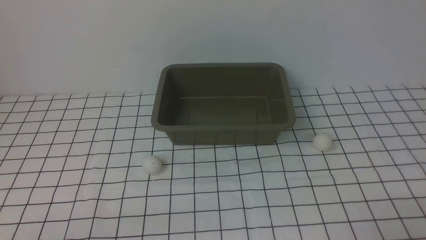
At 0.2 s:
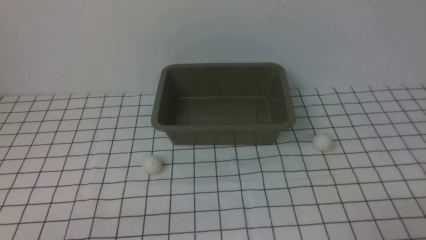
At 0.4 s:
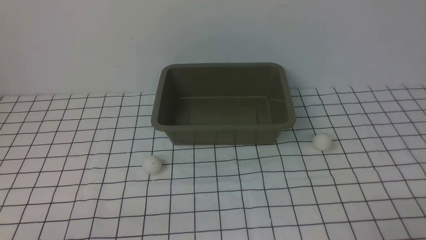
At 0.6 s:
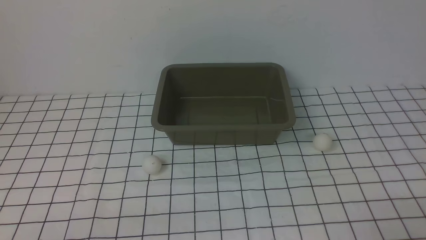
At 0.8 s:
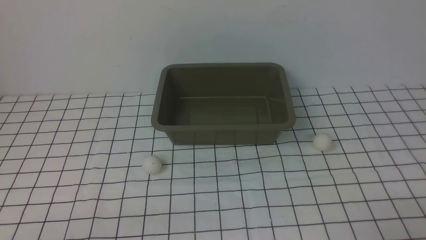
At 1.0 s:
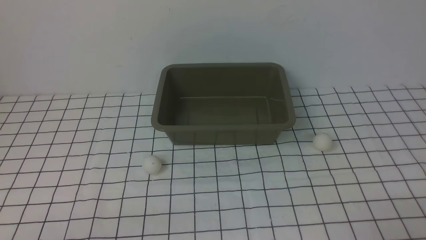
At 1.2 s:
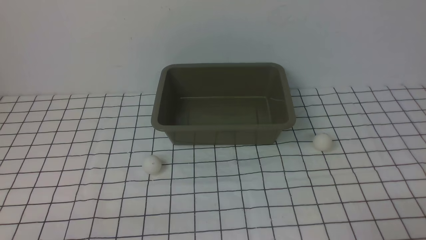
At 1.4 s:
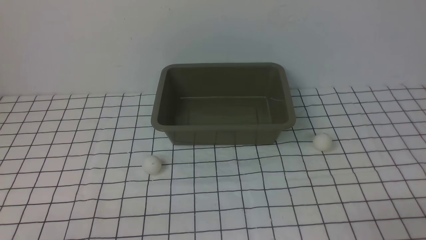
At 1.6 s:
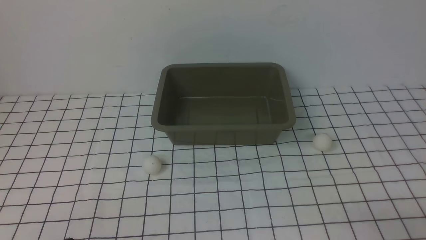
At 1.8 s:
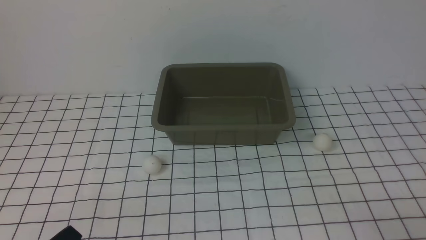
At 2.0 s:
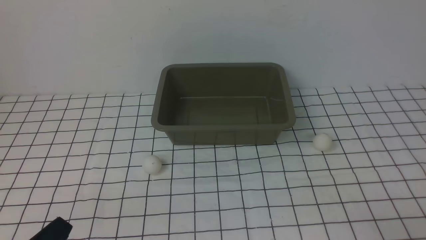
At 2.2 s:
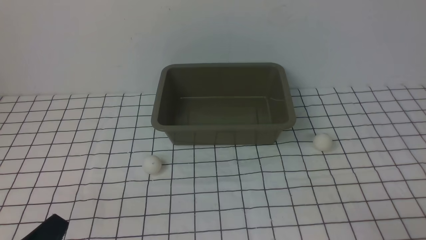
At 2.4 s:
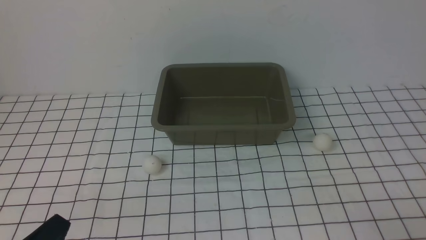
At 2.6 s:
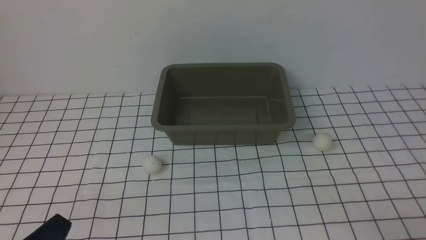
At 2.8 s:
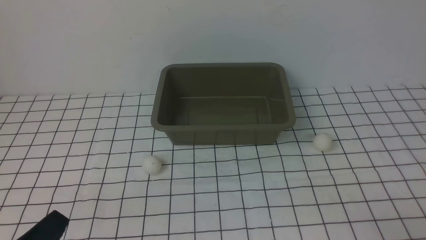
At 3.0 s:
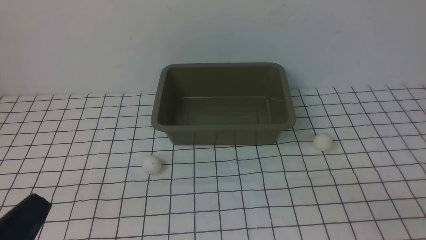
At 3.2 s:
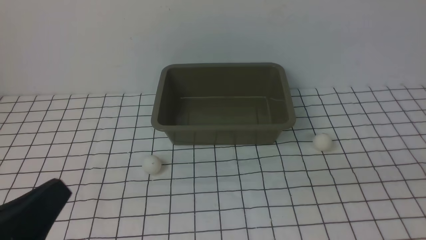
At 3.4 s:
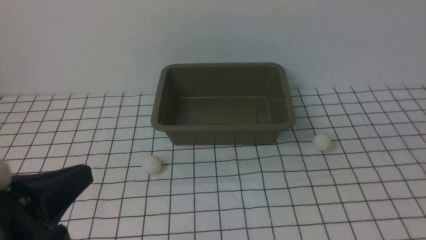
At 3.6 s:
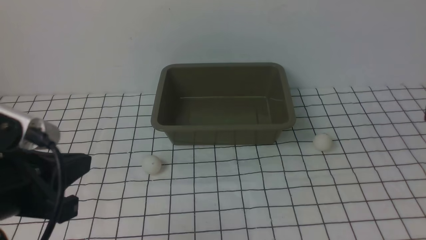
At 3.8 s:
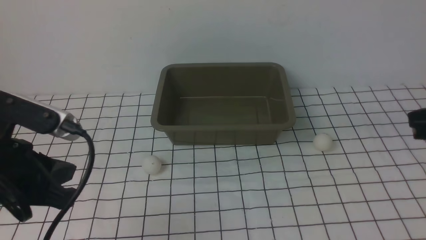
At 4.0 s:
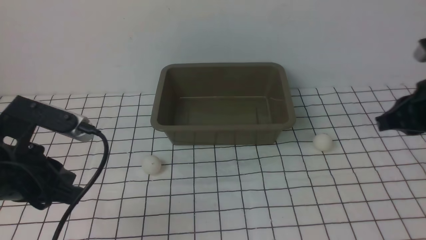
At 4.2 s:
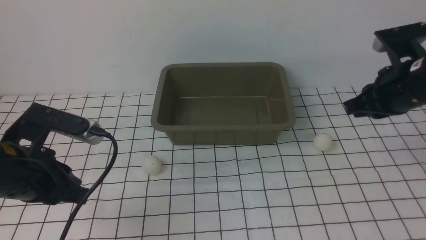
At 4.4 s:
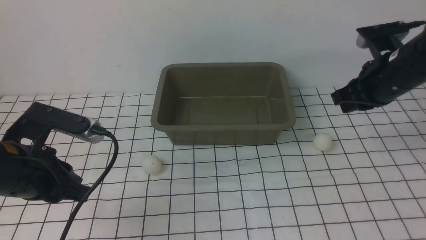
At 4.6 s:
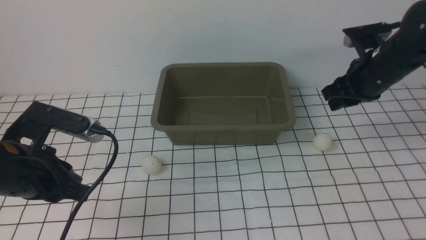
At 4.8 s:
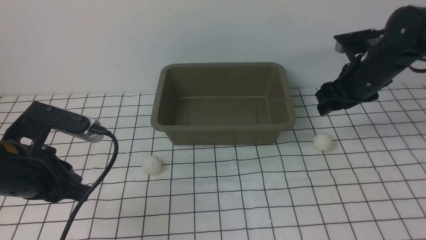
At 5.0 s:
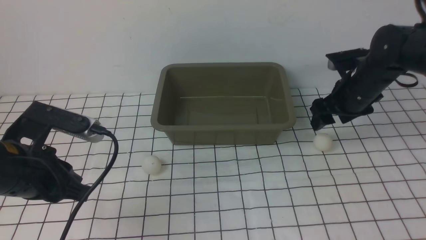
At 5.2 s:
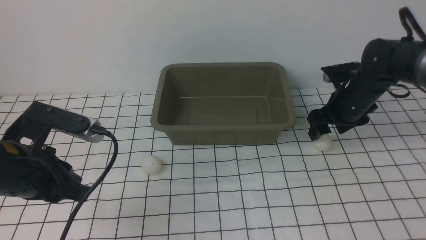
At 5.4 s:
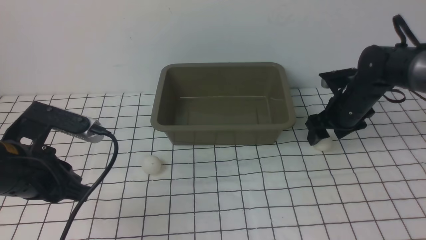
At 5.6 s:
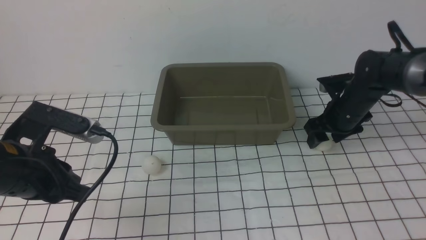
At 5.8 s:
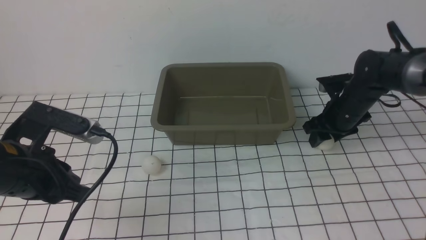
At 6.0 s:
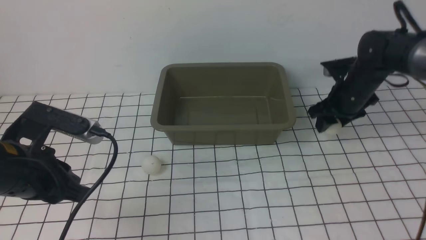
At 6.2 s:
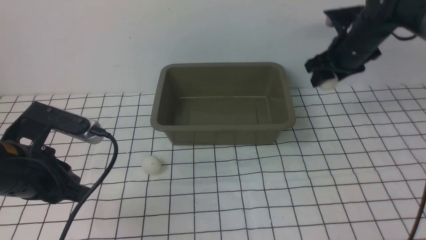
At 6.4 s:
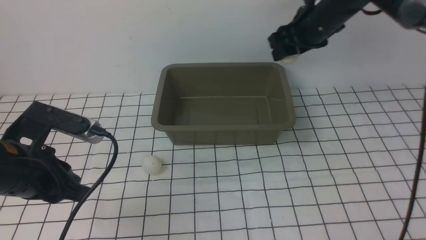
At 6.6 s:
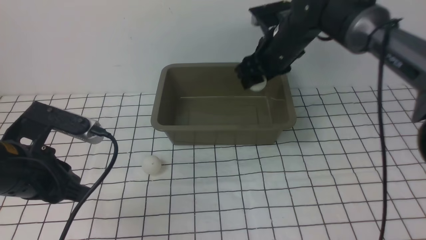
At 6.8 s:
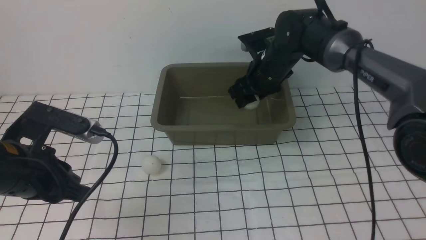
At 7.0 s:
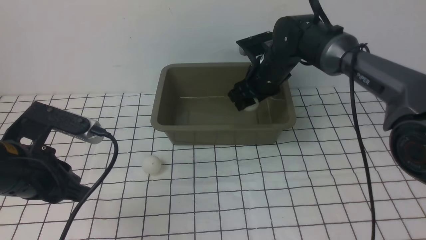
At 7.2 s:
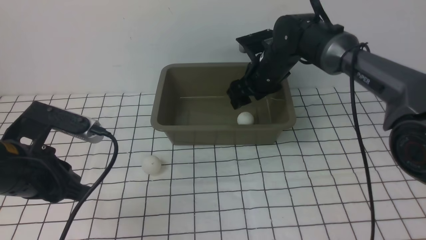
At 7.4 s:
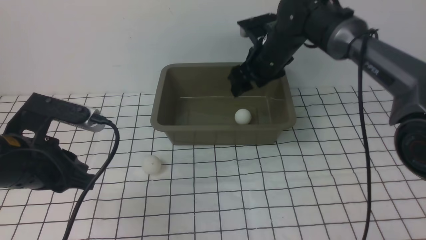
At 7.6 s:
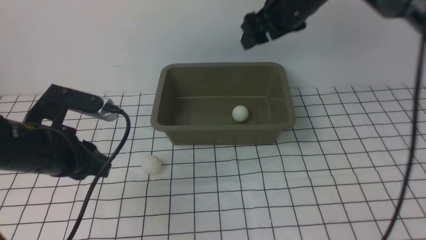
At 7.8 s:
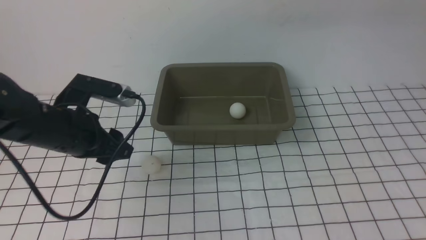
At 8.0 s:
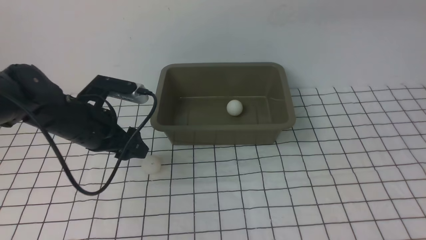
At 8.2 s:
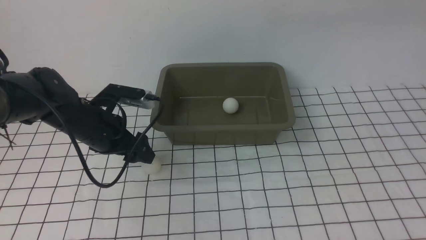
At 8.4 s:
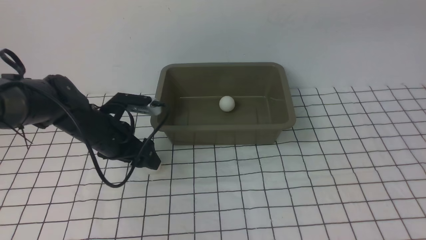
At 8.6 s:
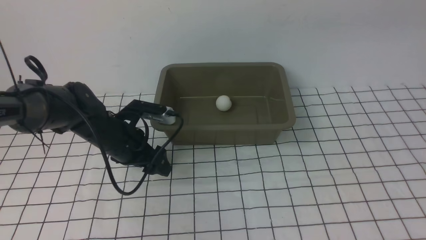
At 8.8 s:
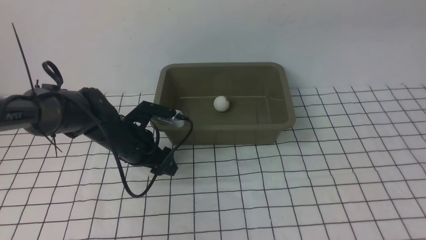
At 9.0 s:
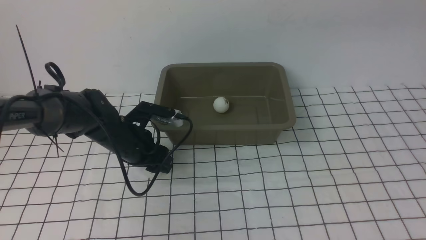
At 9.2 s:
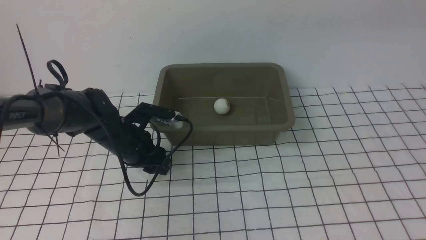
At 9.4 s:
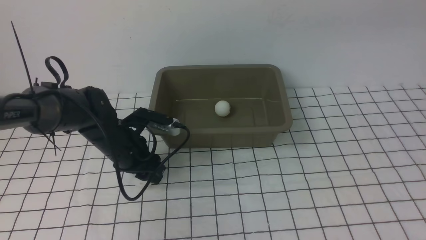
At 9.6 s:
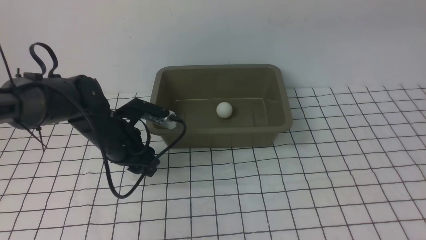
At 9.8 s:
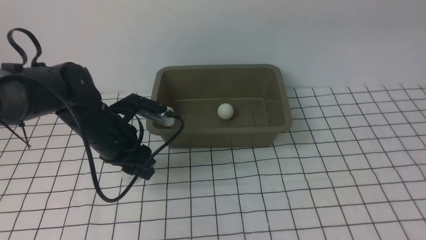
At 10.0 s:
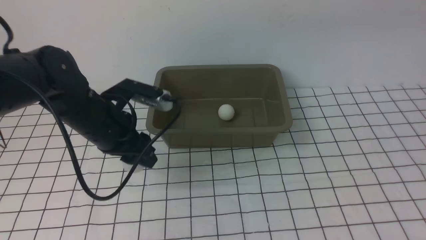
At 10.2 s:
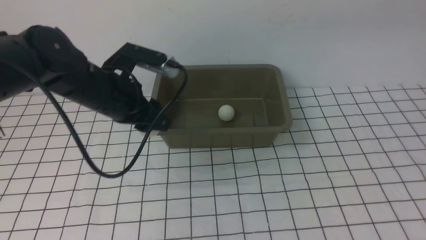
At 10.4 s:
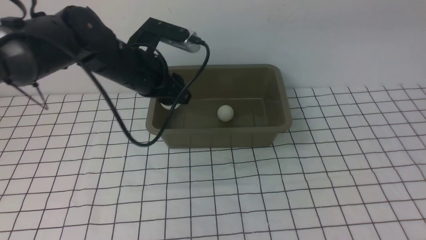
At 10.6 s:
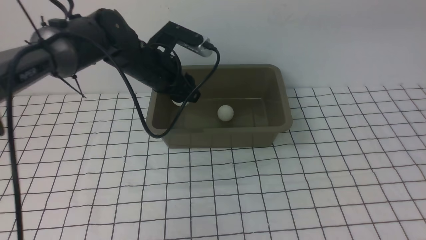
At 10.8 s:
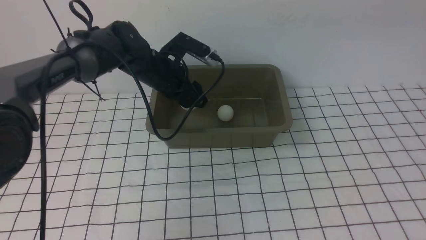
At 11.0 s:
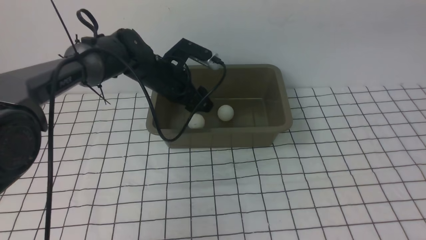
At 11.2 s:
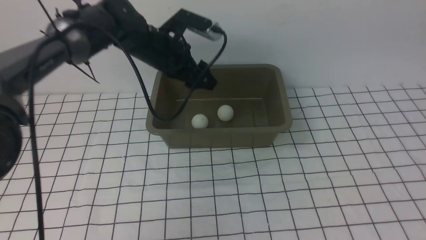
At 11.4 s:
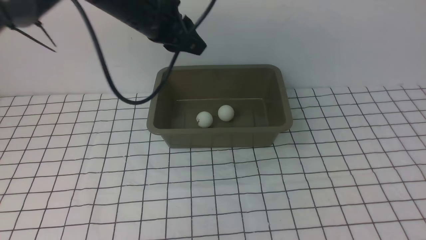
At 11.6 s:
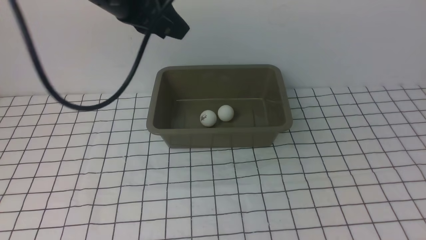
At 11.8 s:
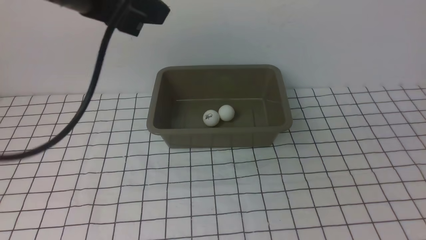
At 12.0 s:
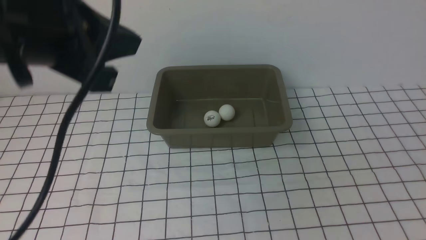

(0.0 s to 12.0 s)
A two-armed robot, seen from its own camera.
Step, 0.0 s - 6.0 s: use the right arm to clamp the table tennis ball closest to it.
Step, 6.2 s - 7.2 s: use the right arm to put the table tennis ball into the box.
Step, 7.4 s - 9.6 s: use the left arm to clamp the table tennis ball closest to it.
Step, 9.8 s - 11.0 s: use the left arm to put the table tennis ball into the box.
1.6 s - 3.0 s: The left gripper goes about 5 cm upward.
3.0 s - 4.4 s: The left gripper is displaced forward by approximately 15 cm; the right gripper shifts some 35 cm forward, and opens up.
4.4 s - 6.0 s: The right gripper travels forward by about 5 cm, and opens, then closes again.
6.0 s - 7.6 s: The left gripper is displaced forward by roughly 5 cm, and opens up, while the right gripper moves up and down over about 20 cm, changing direction 2 times.
7.6 s - 9.0 s: The left gripper travels downward, forward and to the right by approximately 15 cm, and opens, then closes once more, while the right gripper shifts some 20 cm backward, upward and to the right.
9.0 s - 10.4 s: The left gripper travels upward by about 15 cm.
10.4 s - 12.0 s: The right gripper is displaced backward, to the right and downward by approximately 35 cm, and closes up, while the left gripper goes some 25 cm backward and upward, and closes its fingers.

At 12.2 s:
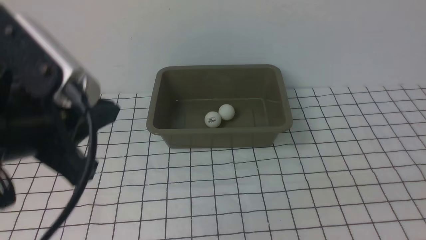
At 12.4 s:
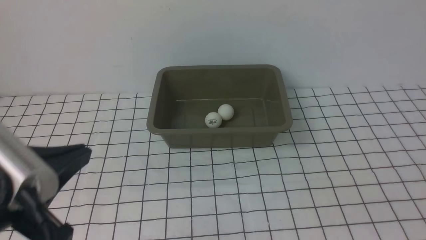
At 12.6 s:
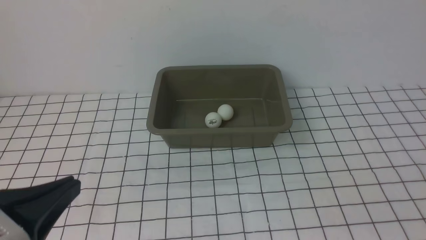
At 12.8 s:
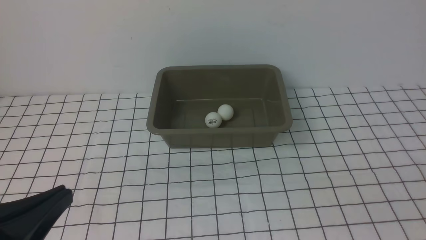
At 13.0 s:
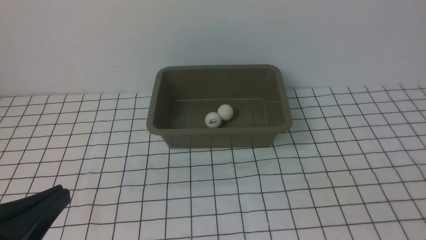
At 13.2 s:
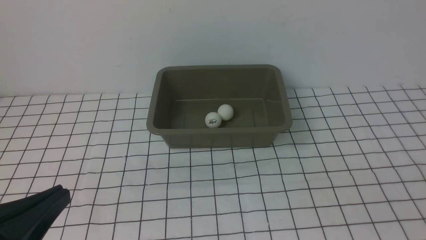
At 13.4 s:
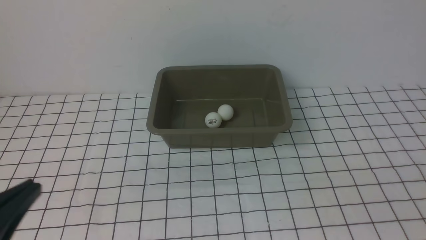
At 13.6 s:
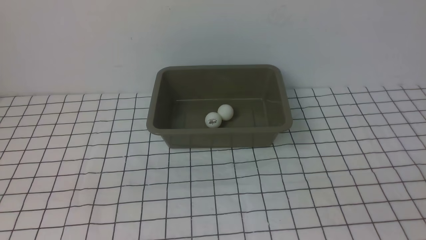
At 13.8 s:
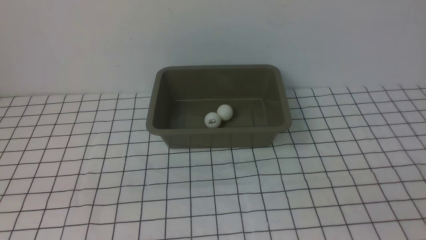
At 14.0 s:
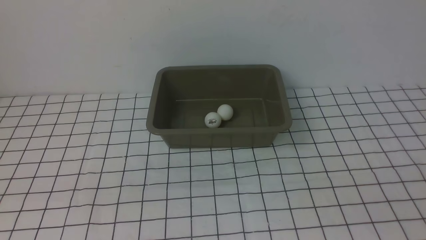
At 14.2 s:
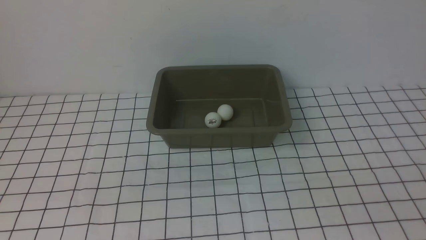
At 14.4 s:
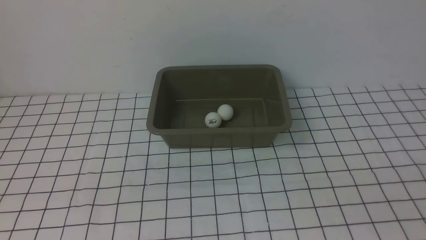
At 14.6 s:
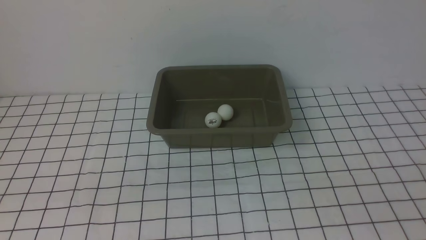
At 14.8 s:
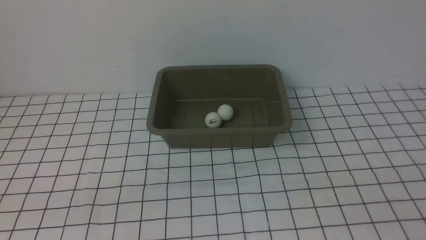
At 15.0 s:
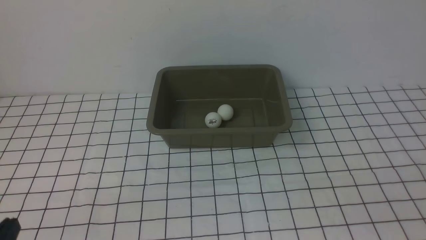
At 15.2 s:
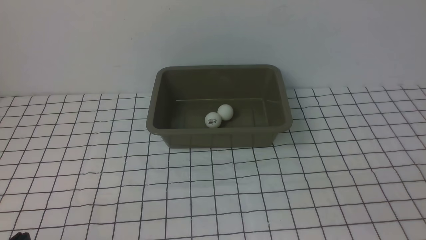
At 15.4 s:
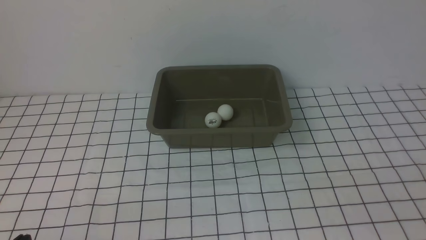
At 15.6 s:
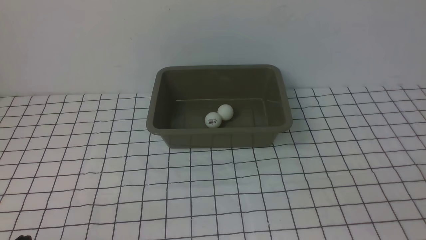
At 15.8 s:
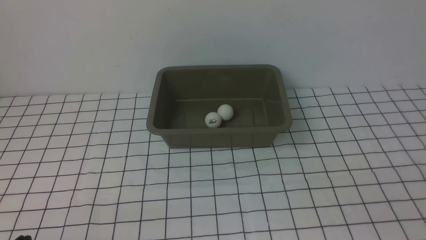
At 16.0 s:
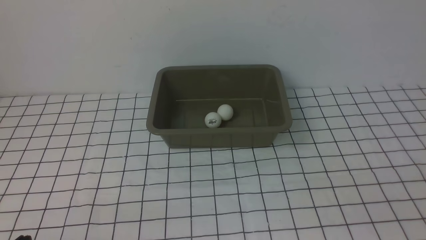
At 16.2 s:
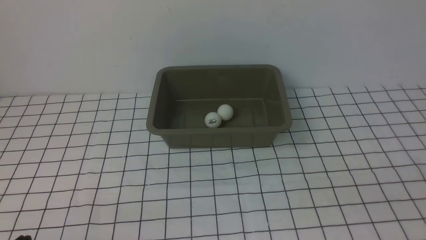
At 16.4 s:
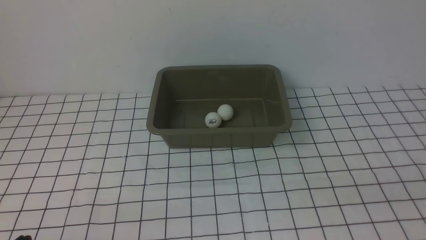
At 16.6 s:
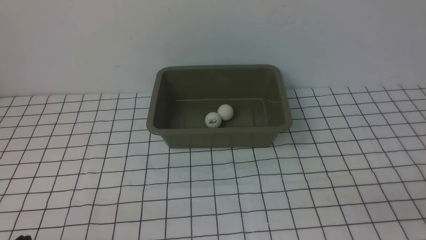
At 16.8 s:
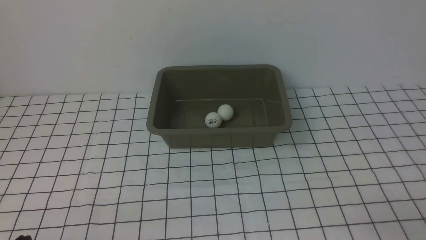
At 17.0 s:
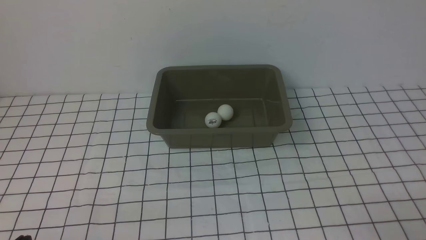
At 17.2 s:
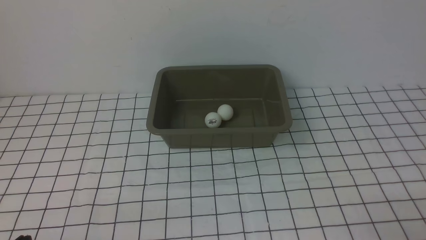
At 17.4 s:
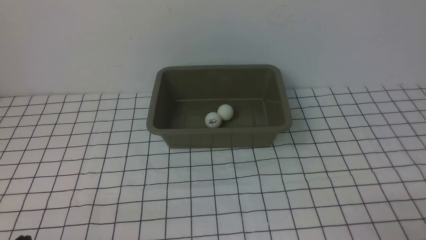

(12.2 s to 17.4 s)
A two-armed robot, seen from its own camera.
12.2 s - 14.0 s: The left gripper goes some 15 cm backward, downward and to the left.
